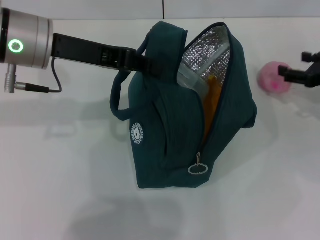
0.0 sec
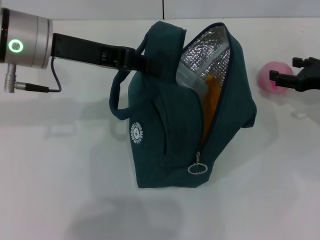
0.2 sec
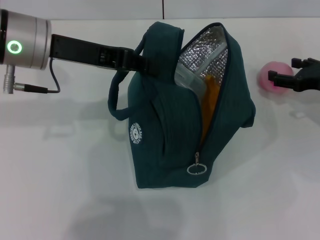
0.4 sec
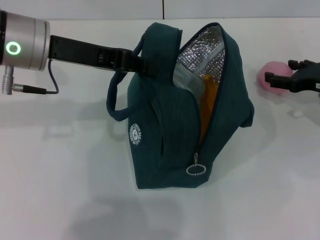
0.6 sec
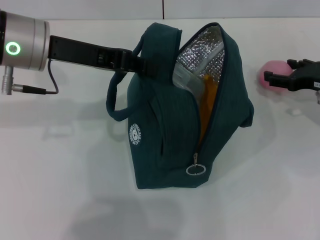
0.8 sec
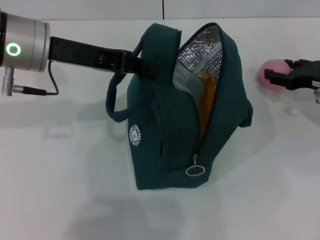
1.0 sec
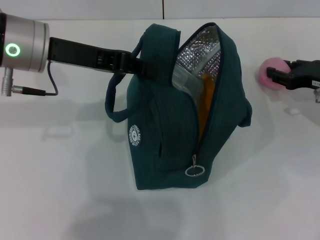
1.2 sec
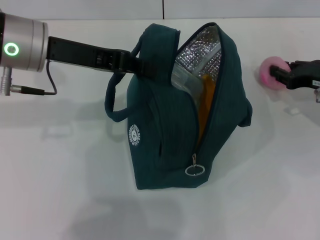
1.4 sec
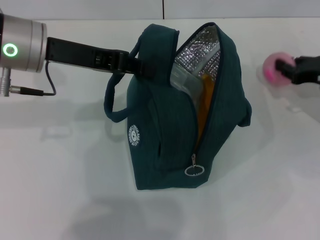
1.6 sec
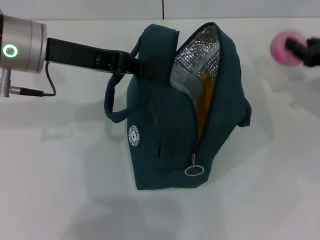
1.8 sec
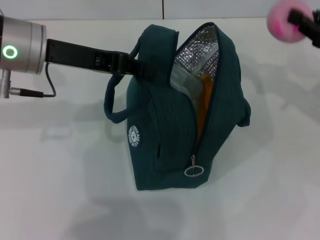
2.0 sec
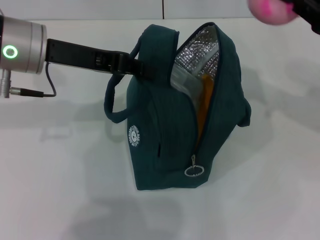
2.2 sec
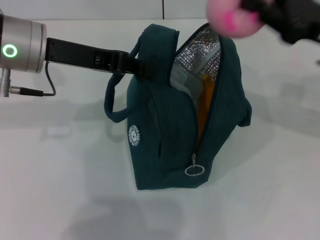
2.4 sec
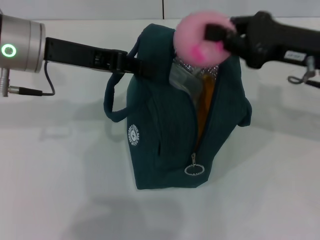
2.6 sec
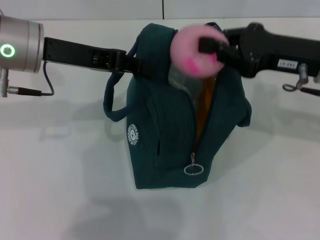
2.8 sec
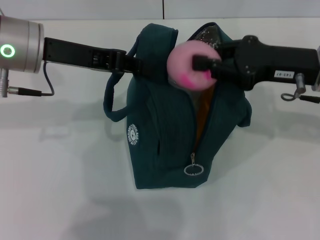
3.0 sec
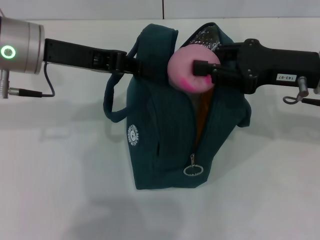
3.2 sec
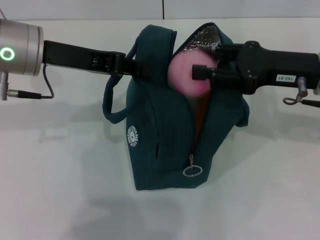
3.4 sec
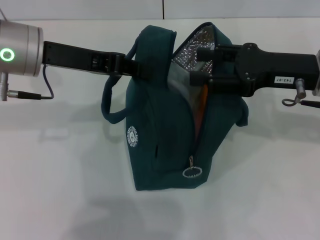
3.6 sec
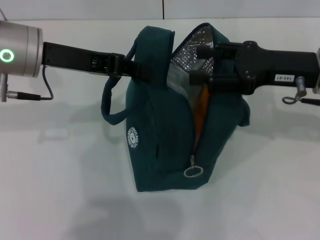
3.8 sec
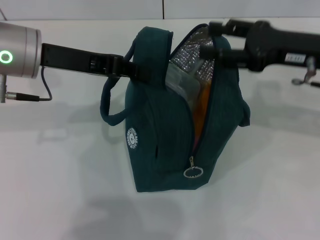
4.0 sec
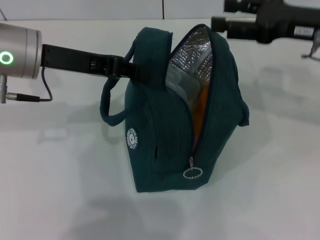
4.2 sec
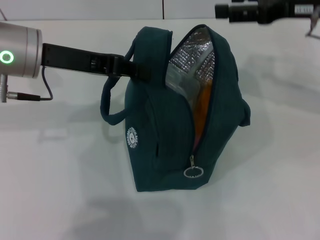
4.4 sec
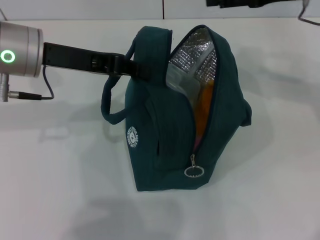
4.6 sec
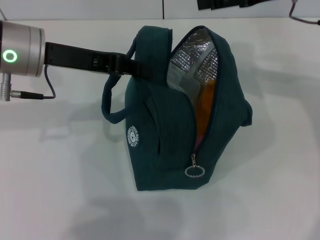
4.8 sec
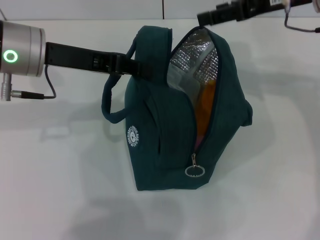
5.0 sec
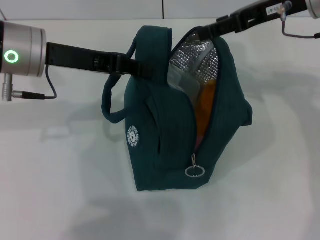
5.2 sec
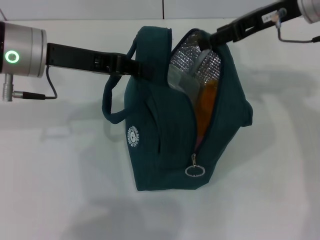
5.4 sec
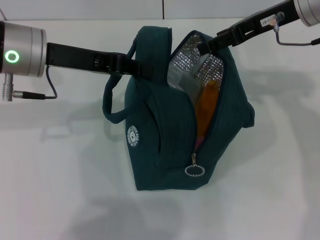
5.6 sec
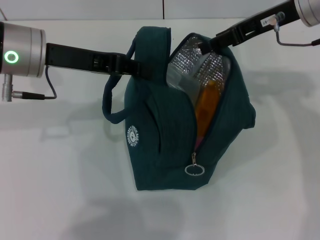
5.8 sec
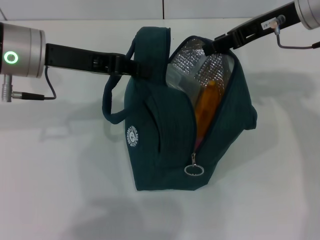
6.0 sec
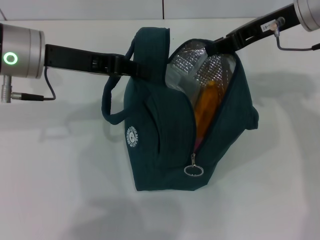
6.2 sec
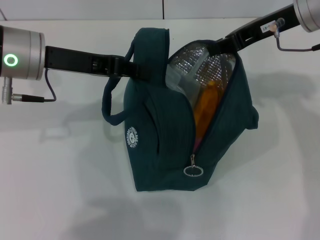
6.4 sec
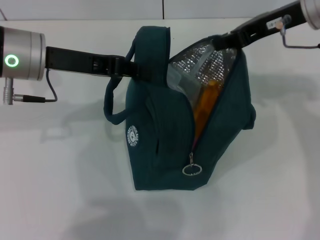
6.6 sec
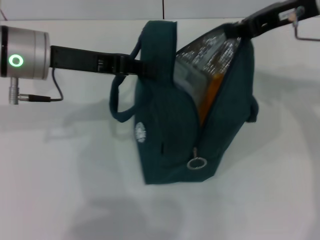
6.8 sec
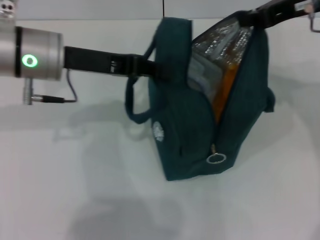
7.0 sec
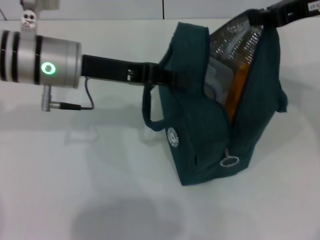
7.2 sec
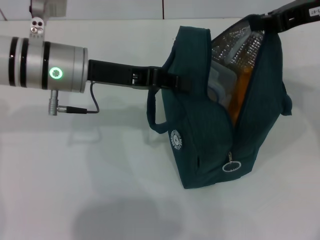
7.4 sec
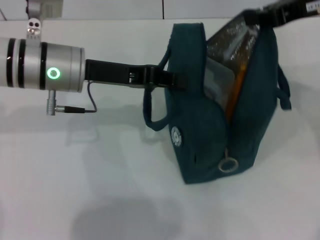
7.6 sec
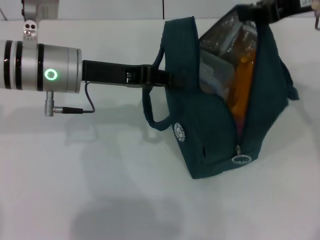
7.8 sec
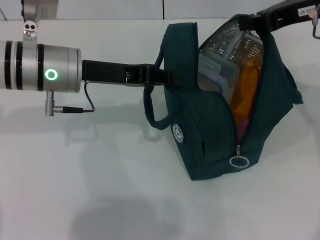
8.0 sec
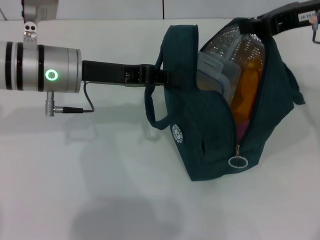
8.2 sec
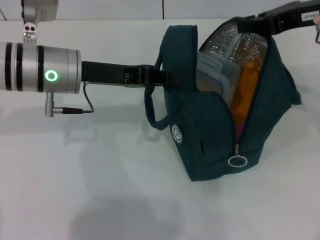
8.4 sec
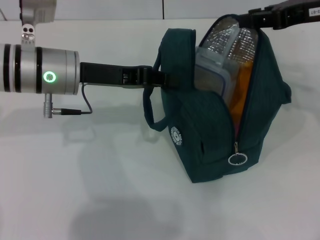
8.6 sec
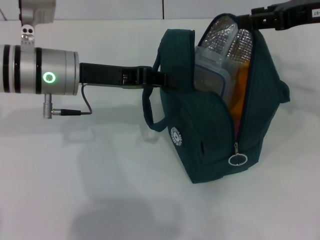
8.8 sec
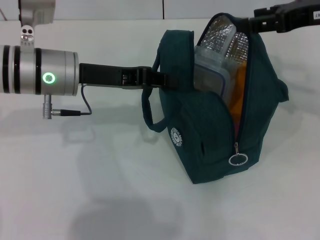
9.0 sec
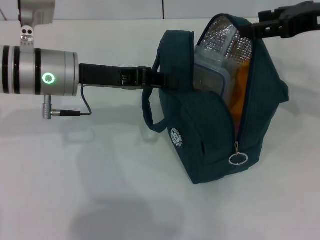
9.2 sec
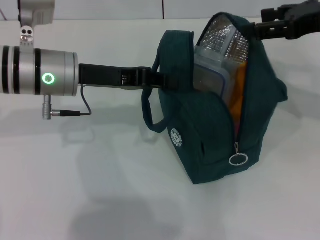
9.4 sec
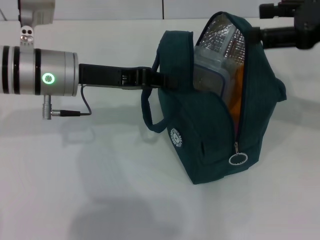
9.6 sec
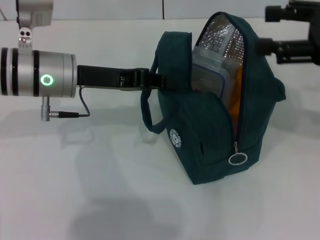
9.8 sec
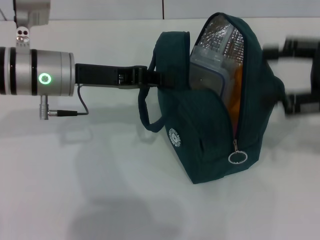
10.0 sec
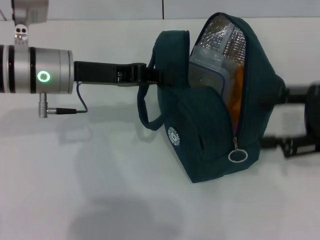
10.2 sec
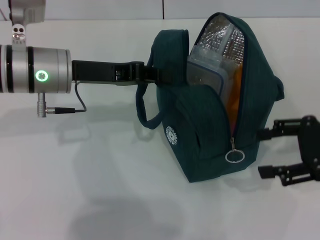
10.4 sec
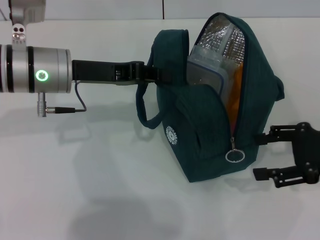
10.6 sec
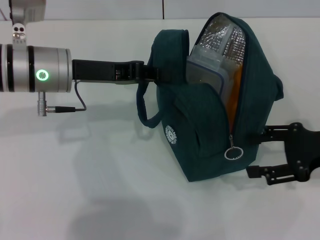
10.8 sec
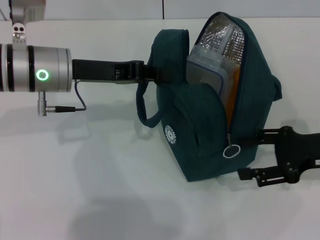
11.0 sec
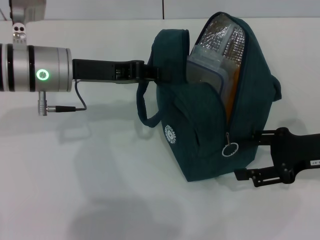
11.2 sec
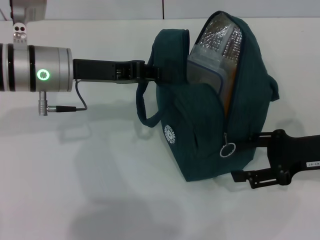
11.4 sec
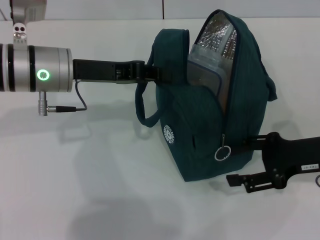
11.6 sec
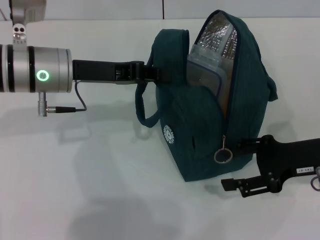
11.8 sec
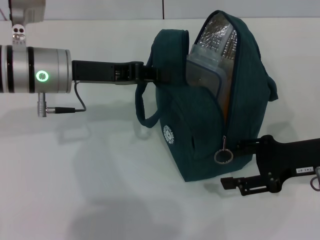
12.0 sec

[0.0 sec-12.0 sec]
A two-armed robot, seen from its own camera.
Step, 0.0 sec to 1.2 sec: Grab the peach with your right hand.
Step, 3.8 sec to 9.6 sec: Hold the lunch bag with your right hand.
0.0 sec to 1.6 sec: The right gripper closes up.
1.6 sec to 3.0 sec: The right gripper goes roughly 10 cm to the left and upward.
3.0 sec to 4.4 sec: The right gripper travels upward by roughly 5 cm, and opens up.
4.4 sec to 6.0 sec: The right gripper travels to the left by about 5 cm.
6.0 sec to 7.6 sec: The right gripper ends up some 5 cm from where it was, and closes its fingers; the left gripper shifts by roughly 5 cm.
7.6 sec to 9.0 sec: The right gripper opens up.
9.0 sec to 10.4 sec: The right gripper shifts approximately 15 cm downward and backward.
10.4 sec to 12.0 sec: The right gripper heads downward, covering roughly 5 cm.

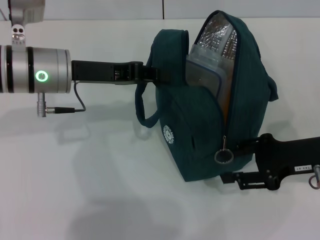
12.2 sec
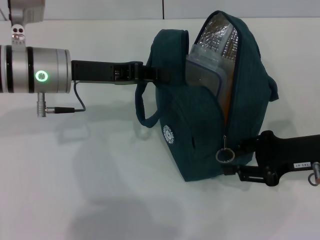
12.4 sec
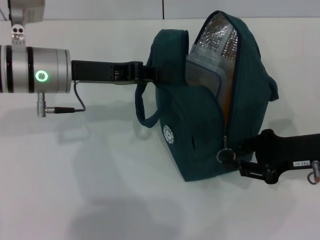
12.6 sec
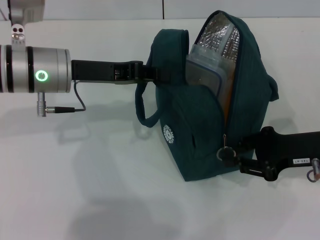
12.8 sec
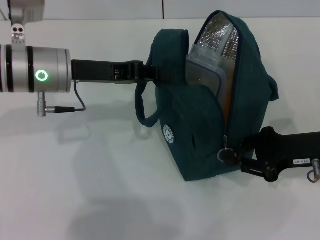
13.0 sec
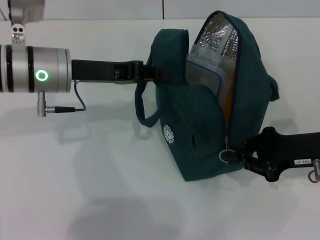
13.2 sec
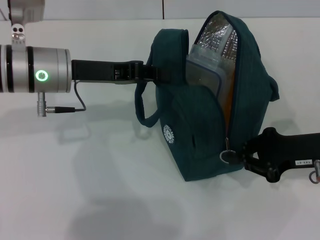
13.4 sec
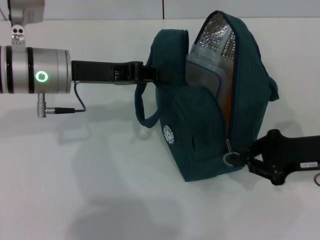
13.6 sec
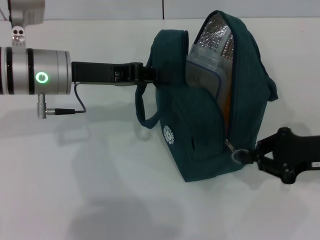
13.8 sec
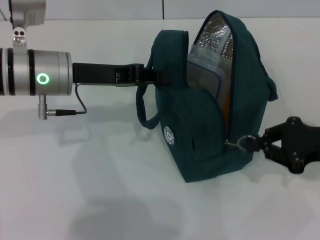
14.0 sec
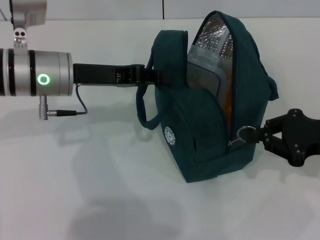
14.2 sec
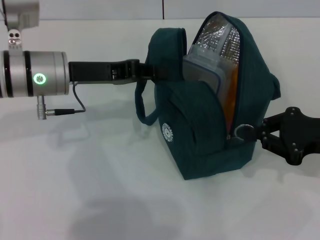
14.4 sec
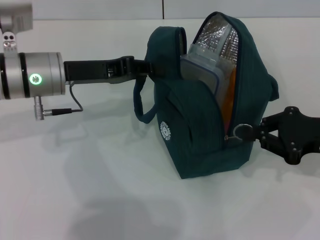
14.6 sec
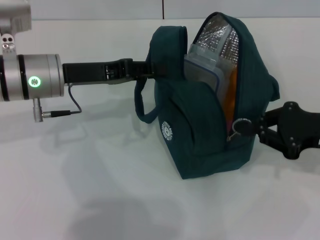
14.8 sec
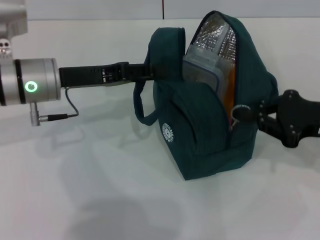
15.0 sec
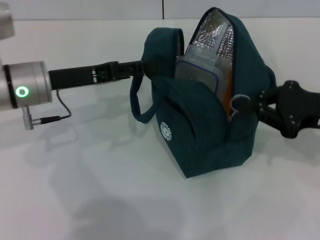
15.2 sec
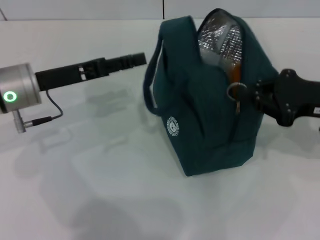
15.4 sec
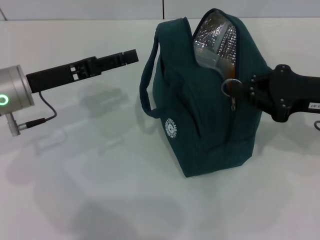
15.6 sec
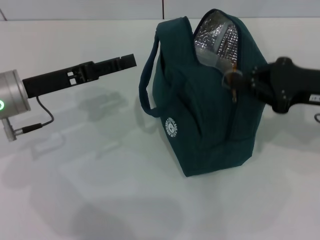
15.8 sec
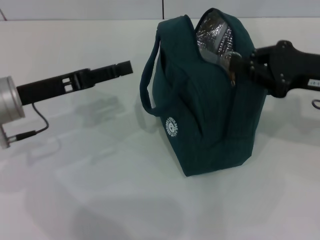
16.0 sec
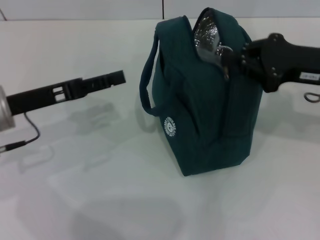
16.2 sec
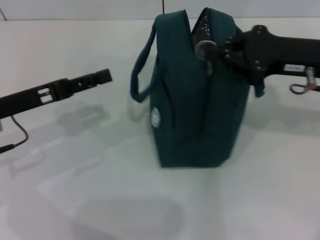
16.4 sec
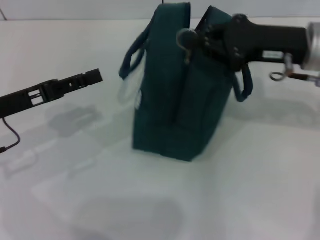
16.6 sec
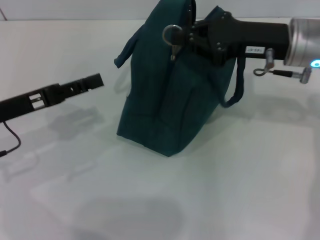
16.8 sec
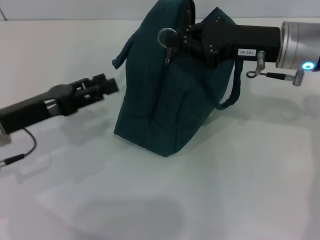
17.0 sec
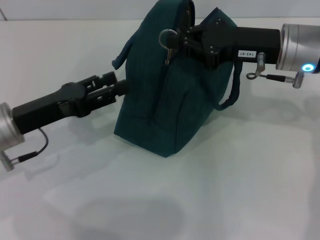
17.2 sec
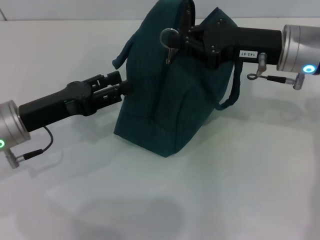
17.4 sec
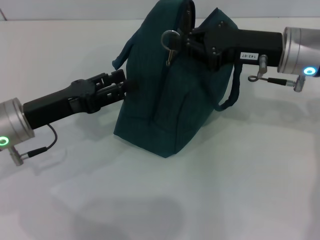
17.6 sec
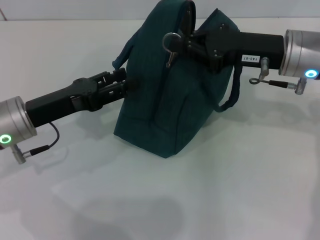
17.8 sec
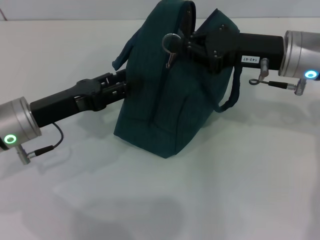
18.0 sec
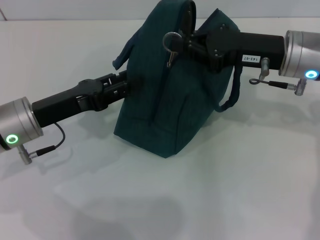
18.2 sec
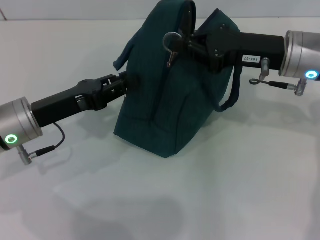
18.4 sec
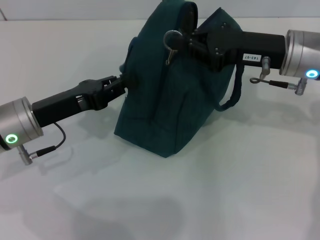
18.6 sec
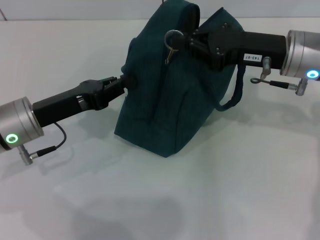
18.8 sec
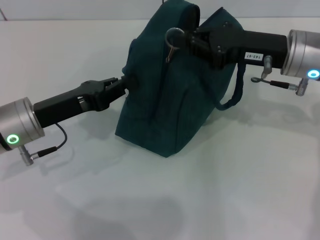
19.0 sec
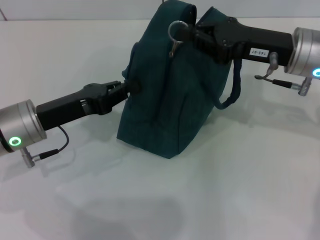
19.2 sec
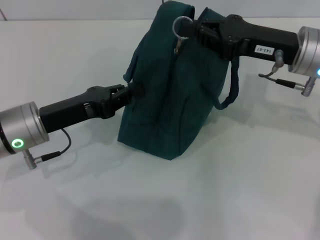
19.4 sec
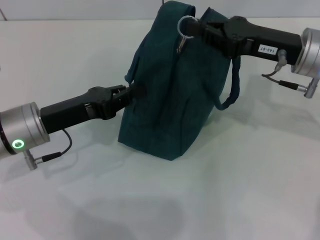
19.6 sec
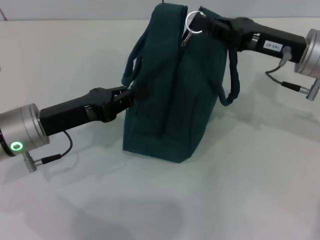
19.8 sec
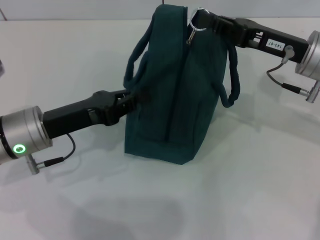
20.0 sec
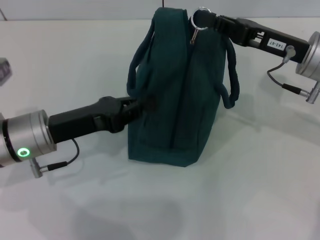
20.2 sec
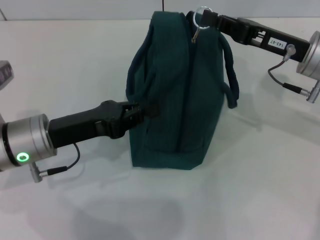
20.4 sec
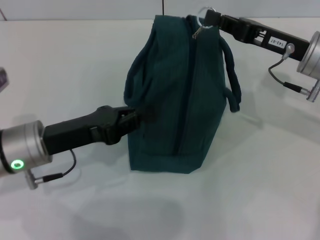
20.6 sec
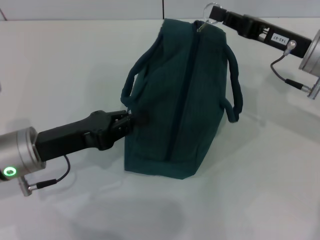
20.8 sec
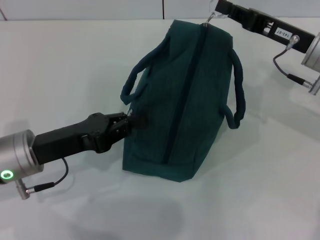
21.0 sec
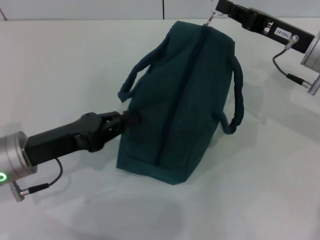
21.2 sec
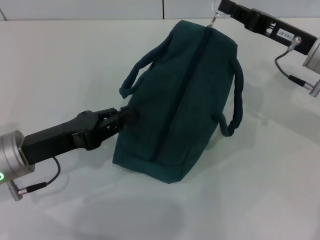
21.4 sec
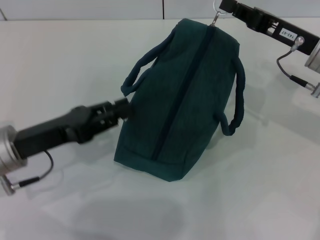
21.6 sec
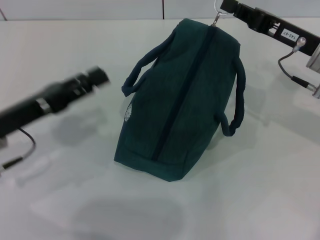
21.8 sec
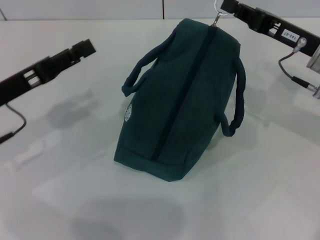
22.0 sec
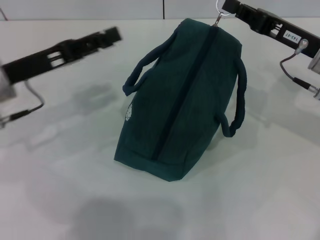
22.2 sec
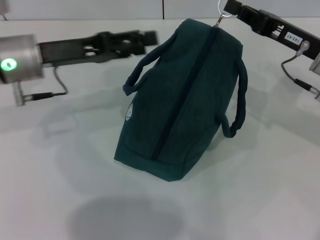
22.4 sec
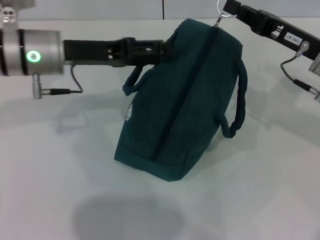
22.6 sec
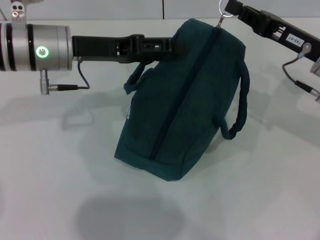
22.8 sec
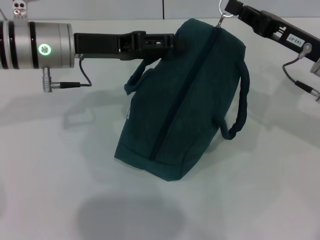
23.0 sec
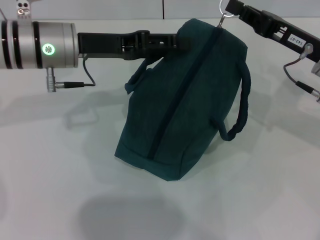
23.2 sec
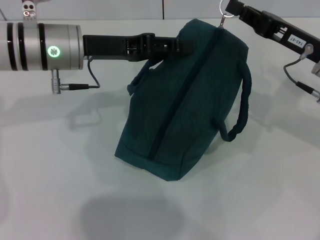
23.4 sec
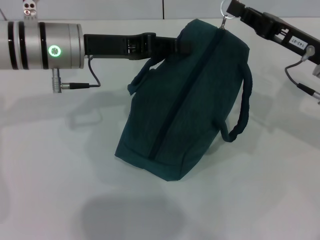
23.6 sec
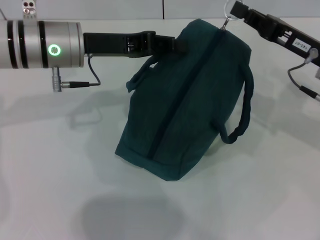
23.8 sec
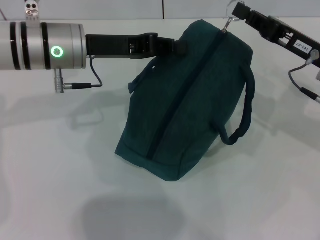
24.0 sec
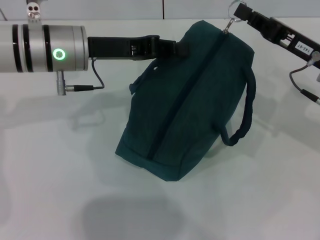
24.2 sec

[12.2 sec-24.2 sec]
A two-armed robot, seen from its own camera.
Step, 12.2 sec to 15.4 sec: Hold the lunch bag with your left hand.
12.2 sec to 13.8 sec: The right gripper closes its fingers.
13.8 sec to 15.2 sec: The left gripper opens up.
15.2 sec to 16.6 sec: The left gripper travels to the left and backward by some 10 cm; the right gripper heads to the left, forward and upward, covering about 10 cm.
16.6 sec to 18.2 sec: The left gripper moves to the right, some 5 cm.
18.2 sec to 19.8 sec: The left gripper closes.
21.2 sec to 22.6 sec: The left gripper goes approximately 15 cm forward and upward, and opens its fingers.
22.6 sec to 24.2 sec: The left gripper closes its fingers.
